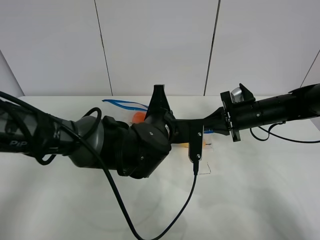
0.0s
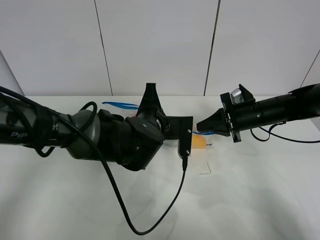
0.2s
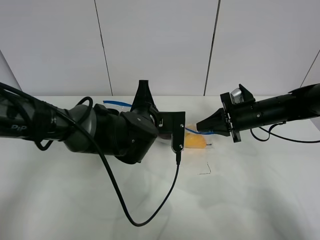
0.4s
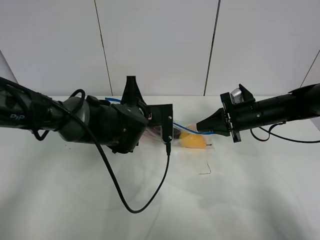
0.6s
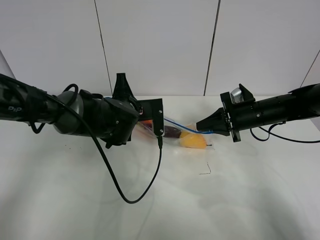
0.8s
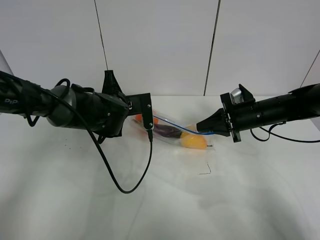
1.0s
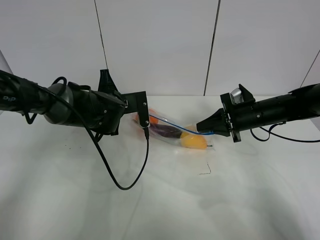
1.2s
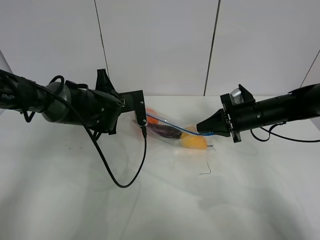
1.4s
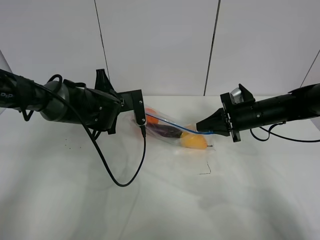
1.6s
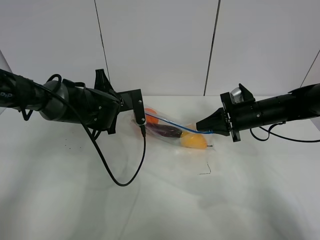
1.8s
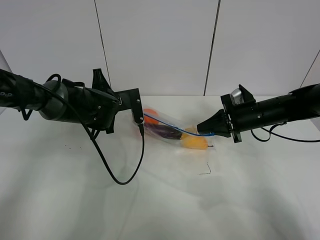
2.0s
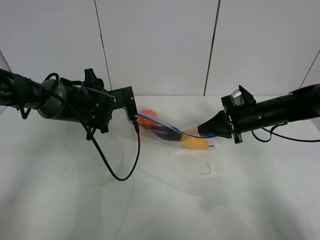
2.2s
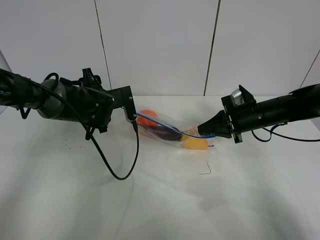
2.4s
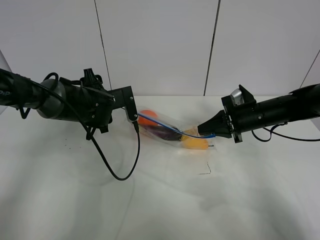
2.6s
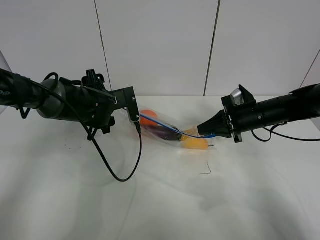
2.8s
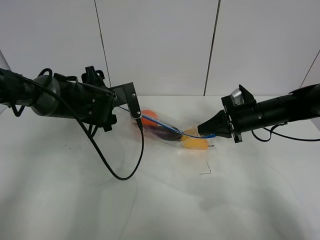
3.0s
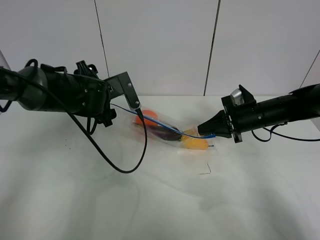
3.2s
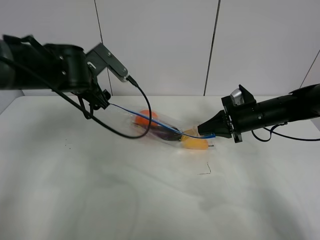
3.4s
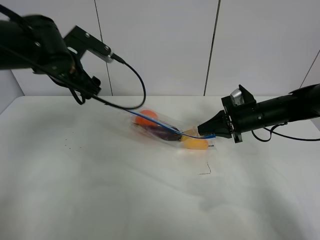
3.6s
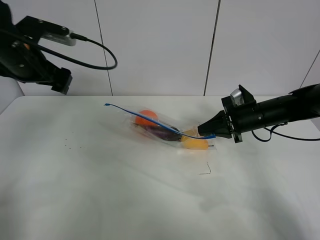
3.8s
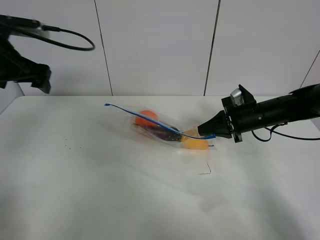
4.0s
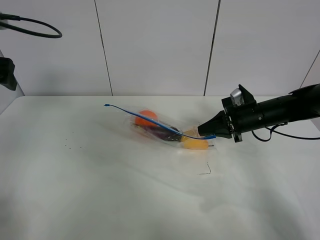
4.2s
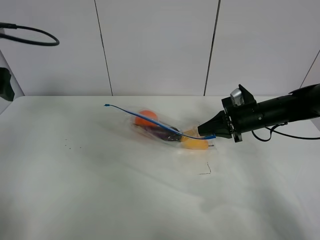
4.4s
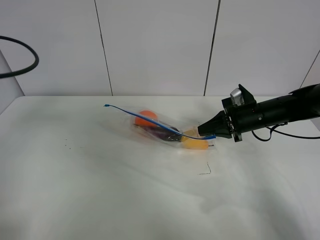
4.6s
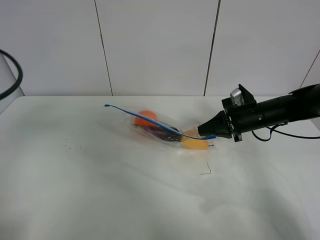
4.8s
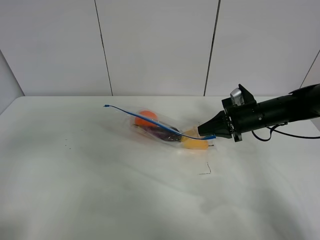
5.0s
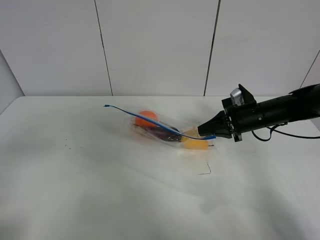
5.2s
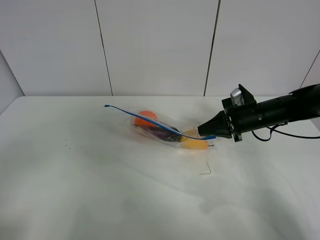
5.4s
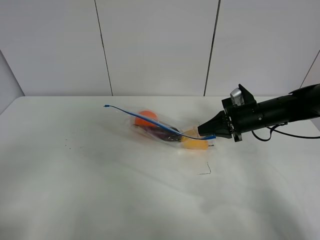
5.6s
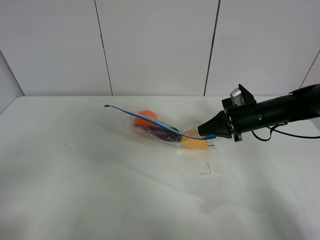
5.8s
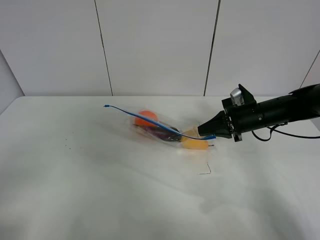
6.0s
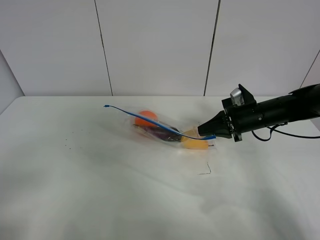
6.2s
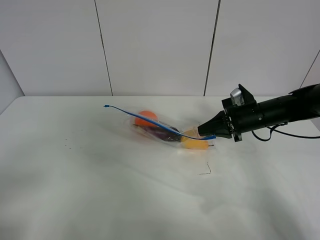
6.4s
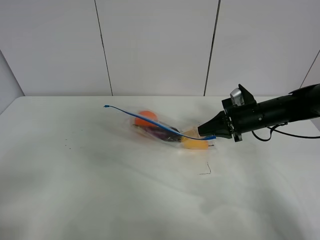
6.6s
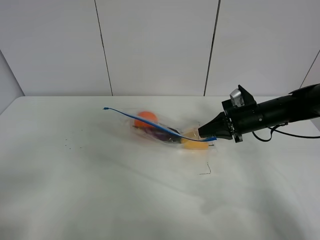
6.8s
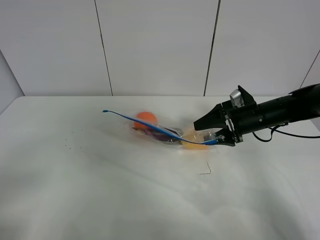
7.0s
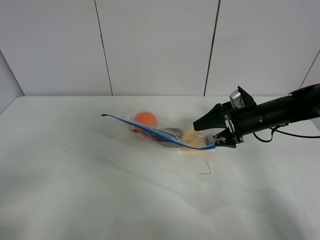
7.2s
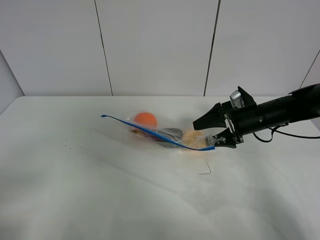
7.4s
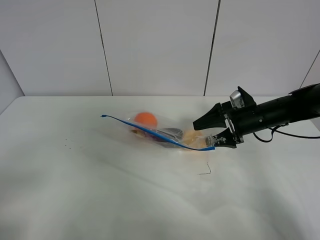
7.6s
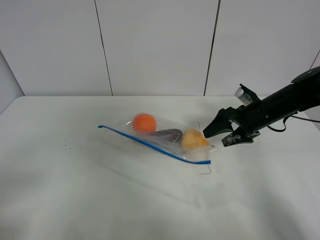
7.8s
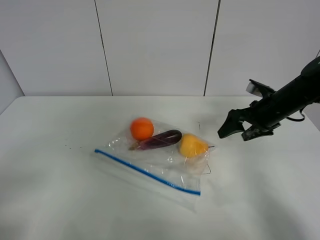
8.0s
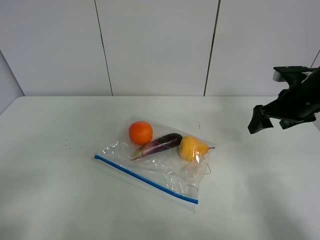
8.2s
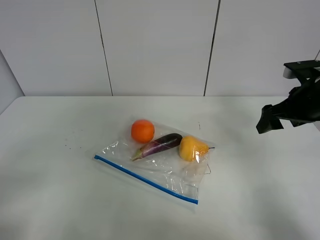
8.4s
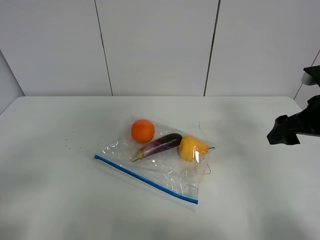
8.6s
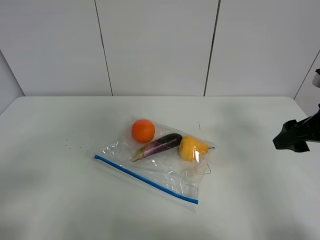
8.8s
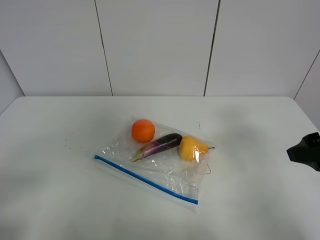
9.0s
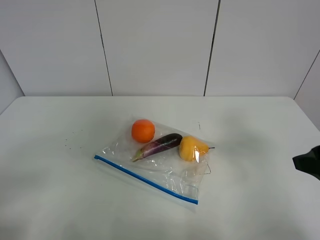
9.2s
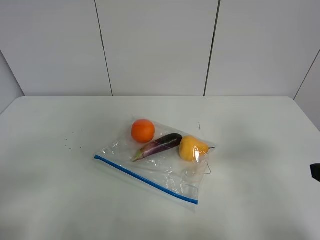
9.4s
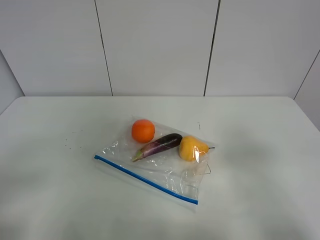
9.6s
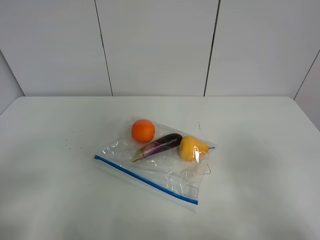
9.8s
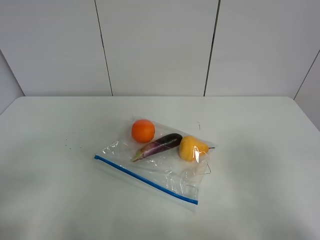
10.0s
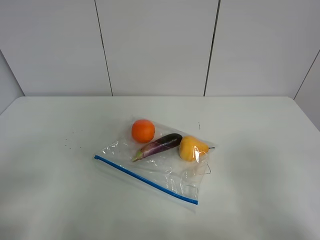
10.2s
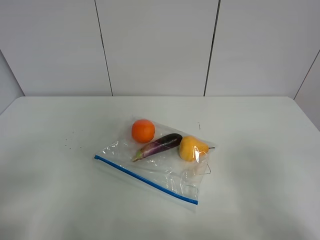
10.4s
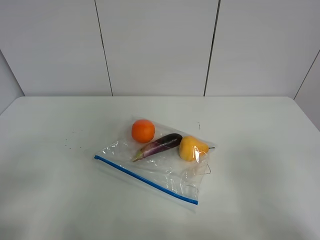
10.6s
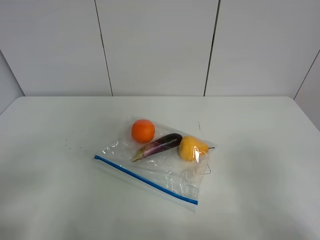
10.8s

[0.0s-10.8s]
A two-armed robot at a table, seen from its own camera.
Step, 0.0s to 2.2s: Pull the fruit bag with left gripper.
0.0s to 1.6s: The left gripper heads to the left and forward, covering approximately 15 cm.
1.6s to 3.0s: The left gripper opens.
3.0s to 4.6s: The left gripper is displaced to the left, backward and upward by roughly 30 cm.
4.6s to 6.2s: The left gripper moves backward, some 20 cm.
6.2s to 7.8s: The right gripper opens.
7.8s to 9.2s: The right gripper goes about 25 cm backward and upward.
9.2s to 10.8s: The right gripper shifts some 10 cm backward.

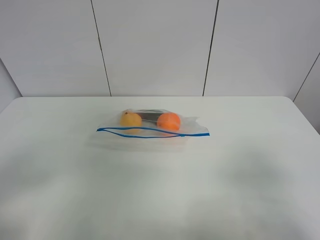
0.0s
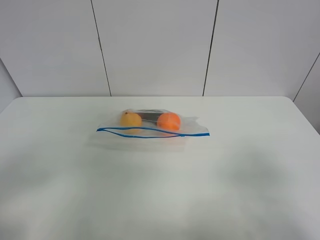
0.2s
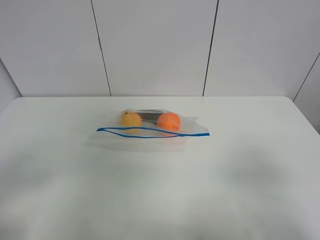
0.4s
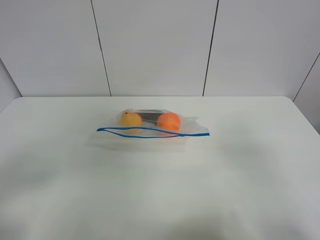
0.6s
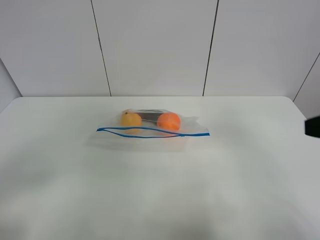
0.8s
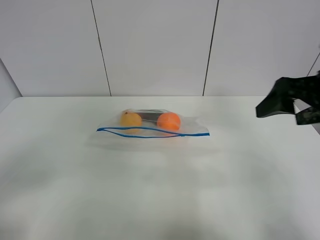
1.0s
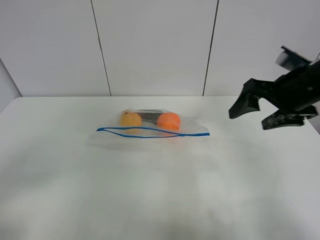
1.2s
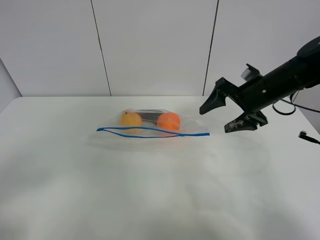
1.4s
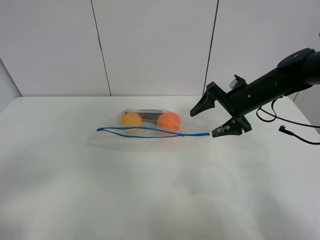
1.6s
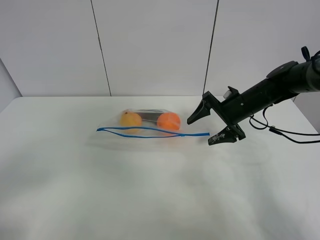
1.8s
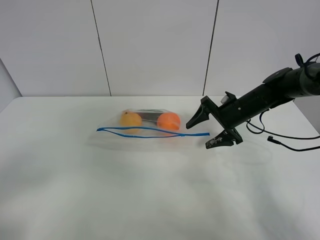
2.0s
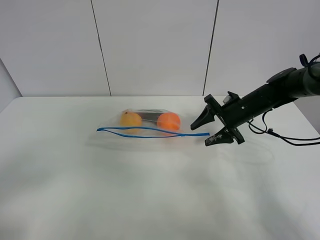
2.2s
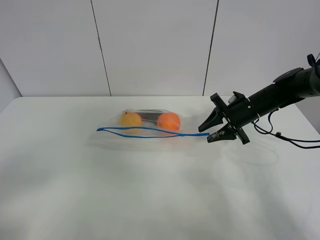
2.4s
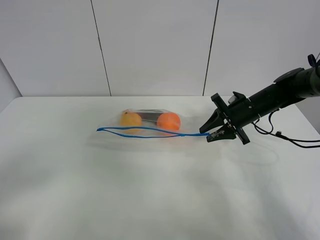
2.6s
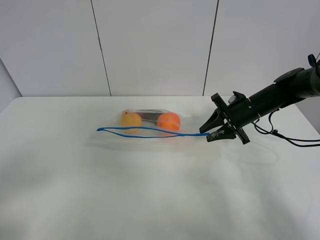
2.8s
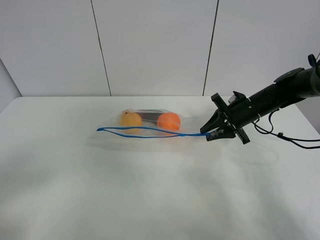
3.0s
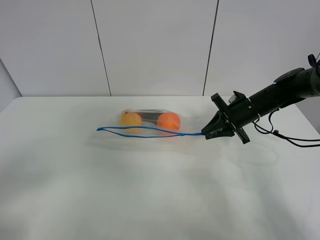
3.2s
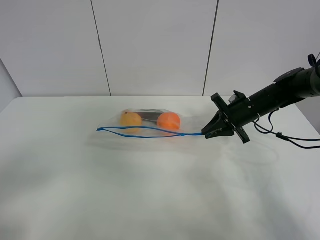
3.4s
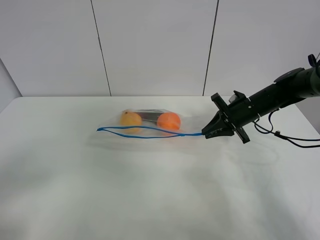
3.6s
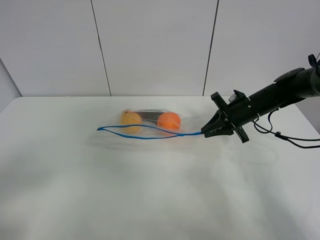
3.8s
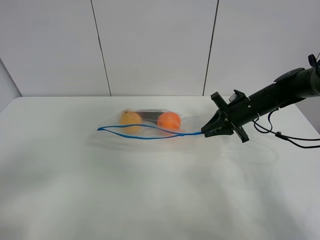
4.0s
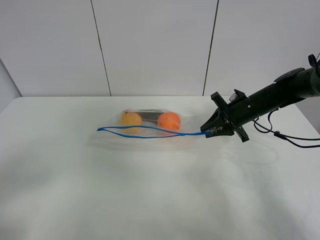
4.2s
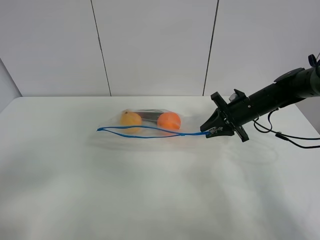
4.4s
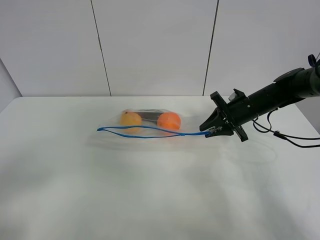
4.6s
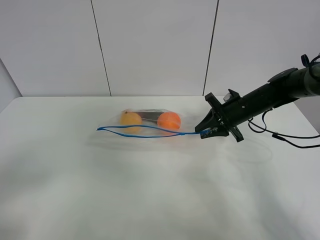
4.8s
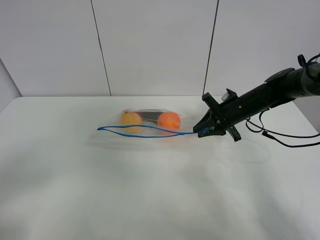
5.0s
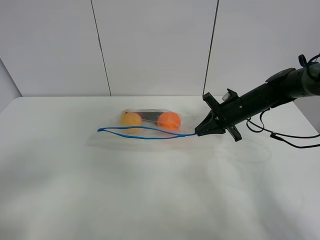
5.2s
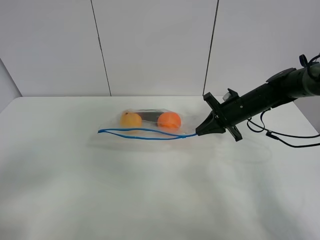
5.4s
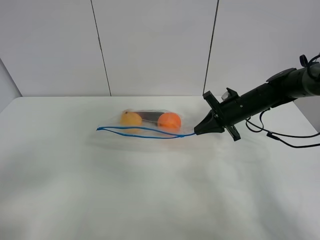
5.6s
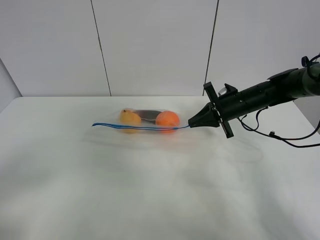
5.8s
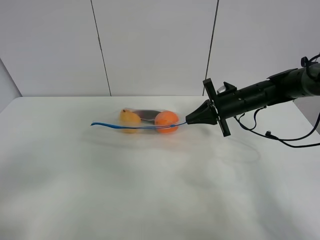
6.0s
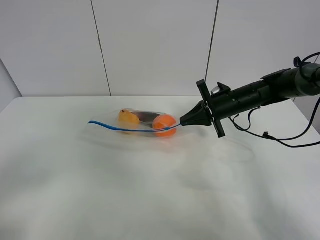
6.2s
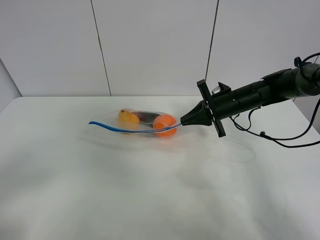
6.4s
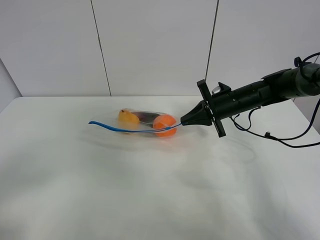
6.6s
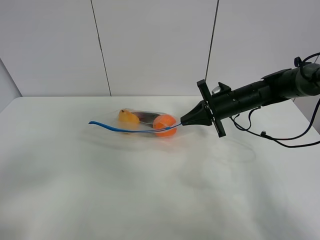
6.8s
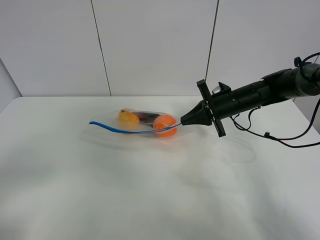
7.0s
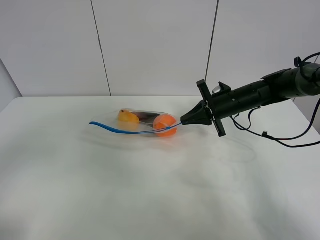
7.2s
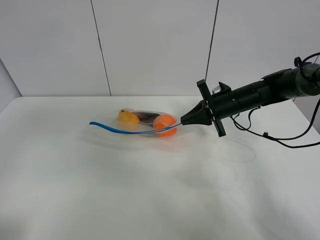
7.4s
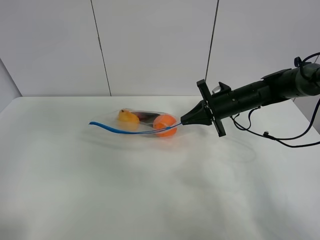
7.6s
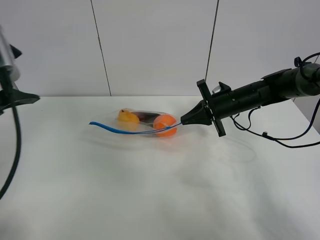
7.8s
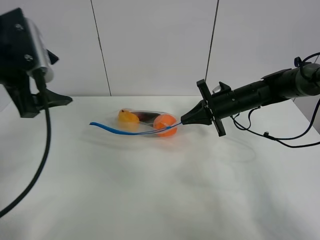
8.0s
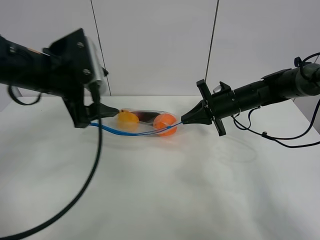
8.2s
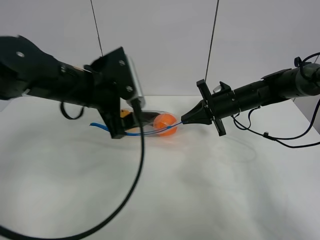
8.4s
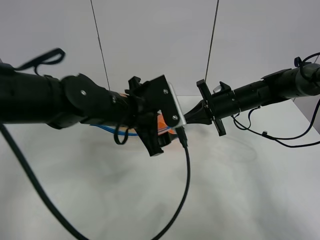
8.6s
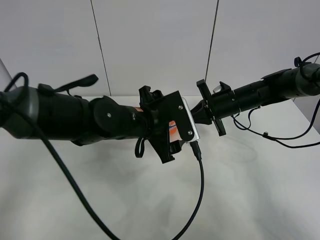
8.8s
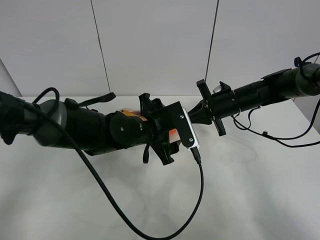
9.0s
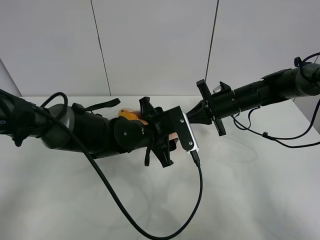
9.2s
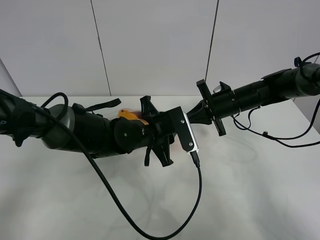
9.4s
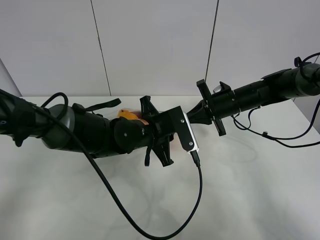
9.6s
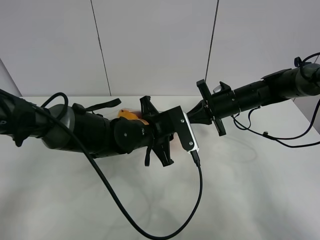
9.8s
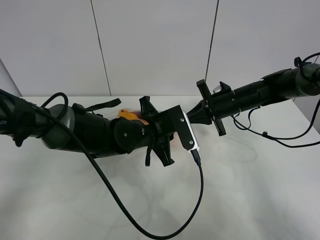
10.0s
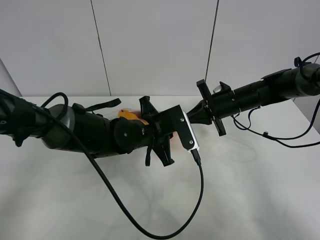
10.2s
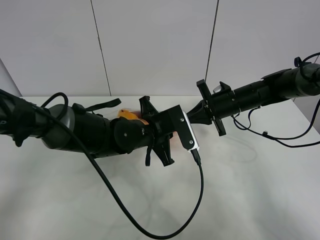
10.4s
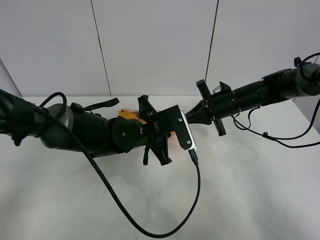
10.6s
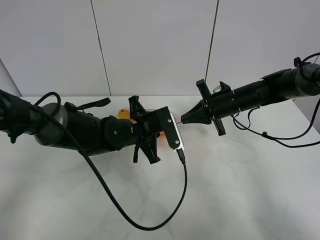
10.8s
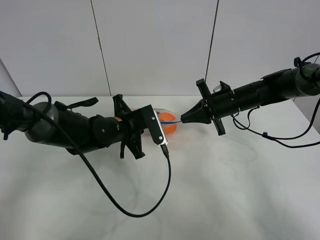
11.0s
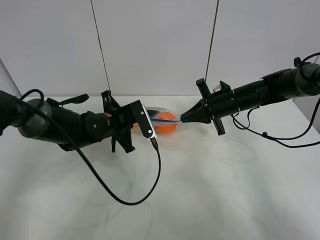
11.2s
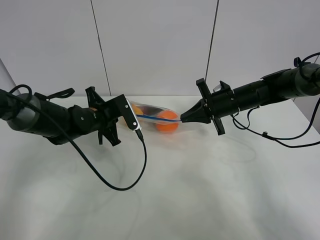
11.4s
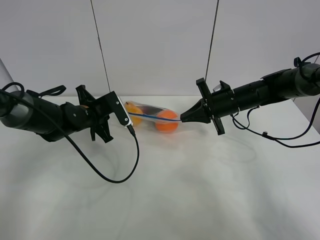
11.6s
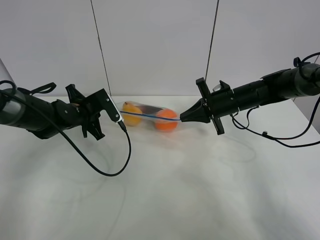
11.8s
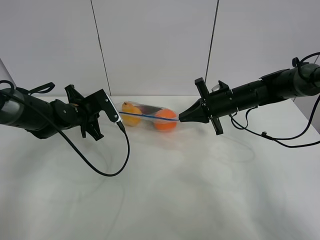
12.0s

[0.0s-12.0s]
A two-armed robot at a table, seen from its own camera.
Step, 0.0s to 3.2s: Grasp the fruit bag with right gripper.
Step, 3.4s to 6.4s: Lift the fruit bag with your right gripper.
0.0s to 1.6s: The right gripper shifts about 35 cm forward.
1.6s to 3.0s: The right gripper shifts by approximately 5 cm, and closes up.
3.0s to 4.4s: Both grippers stay put.
4.4s to 6.0s: There are only small adjustments of the grippers.
6.0s to 7.6s: The left gripper heads forward and upward, covering approximately 20 cm.
7.6s to 9.0s: The left gripper heads to the right, downward and forward, covering roughly 35 cm.
9.0s to 10.4s: The left gripper closes.
10.4s to 12.0s: The left gripper shifts some 20 cm to the left.
